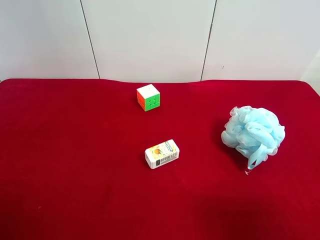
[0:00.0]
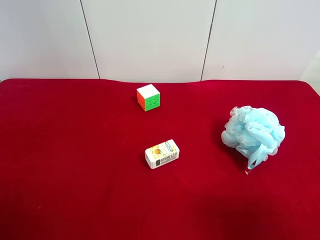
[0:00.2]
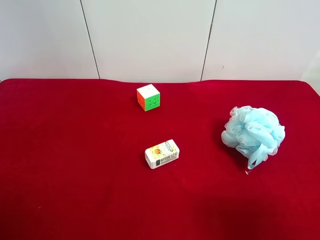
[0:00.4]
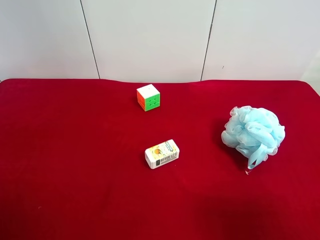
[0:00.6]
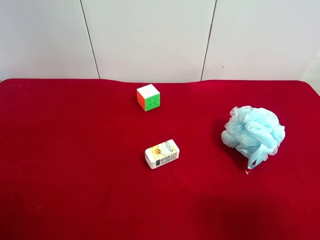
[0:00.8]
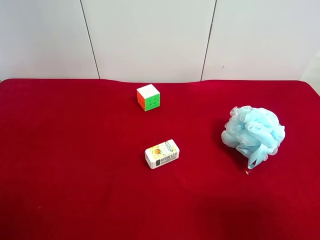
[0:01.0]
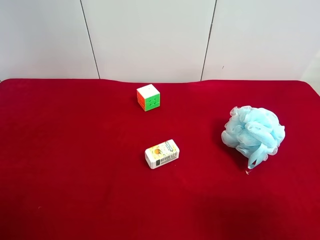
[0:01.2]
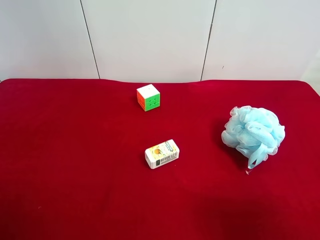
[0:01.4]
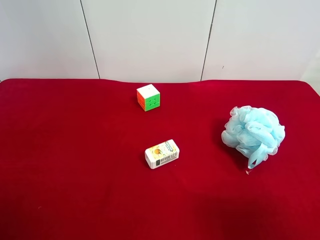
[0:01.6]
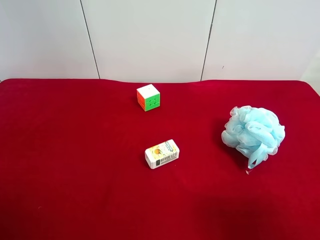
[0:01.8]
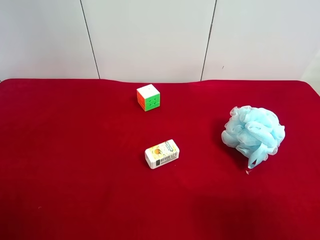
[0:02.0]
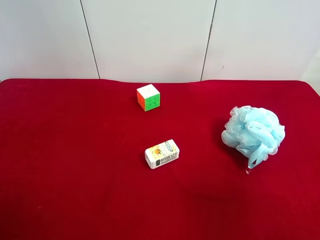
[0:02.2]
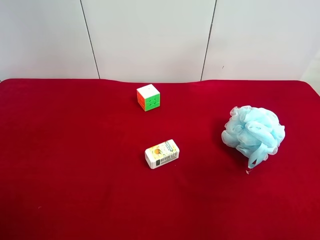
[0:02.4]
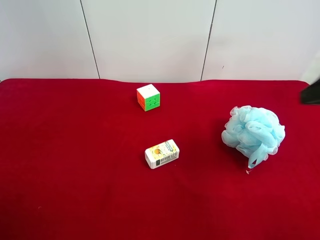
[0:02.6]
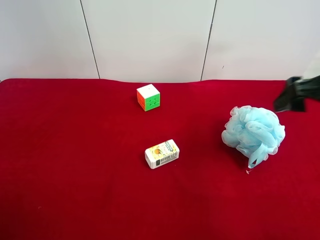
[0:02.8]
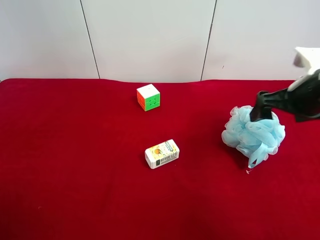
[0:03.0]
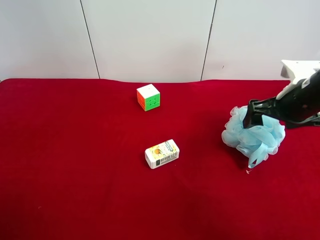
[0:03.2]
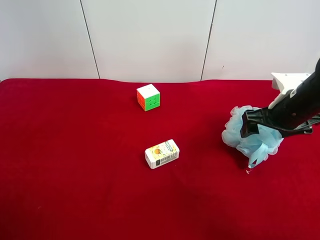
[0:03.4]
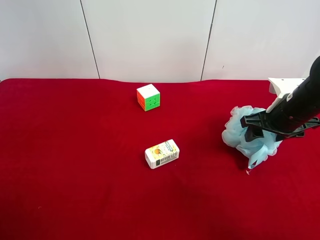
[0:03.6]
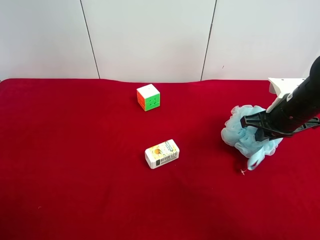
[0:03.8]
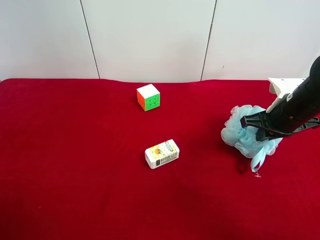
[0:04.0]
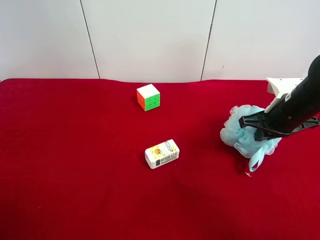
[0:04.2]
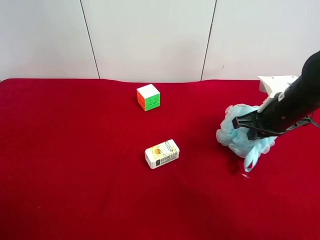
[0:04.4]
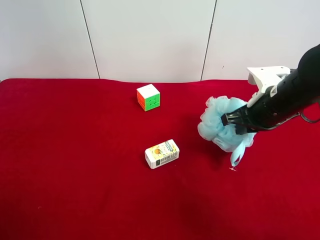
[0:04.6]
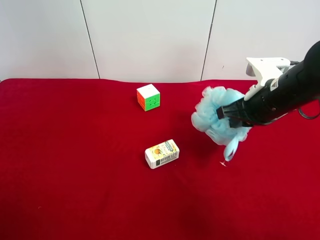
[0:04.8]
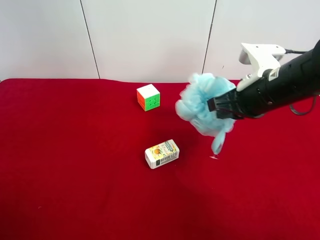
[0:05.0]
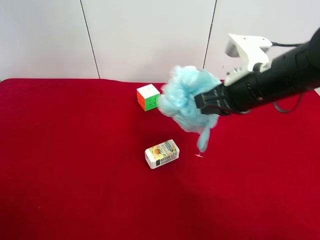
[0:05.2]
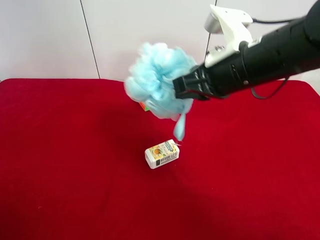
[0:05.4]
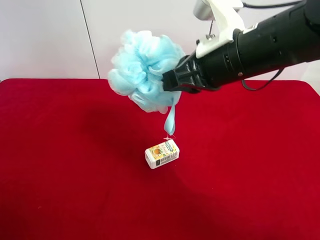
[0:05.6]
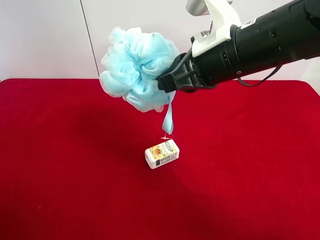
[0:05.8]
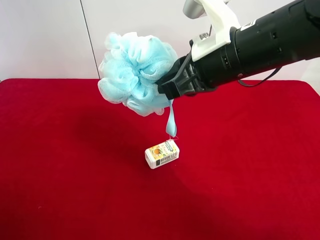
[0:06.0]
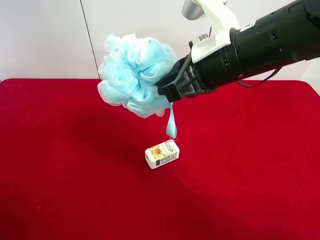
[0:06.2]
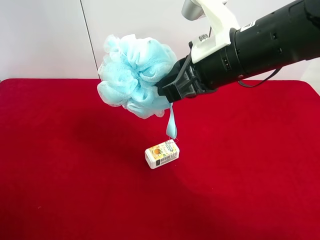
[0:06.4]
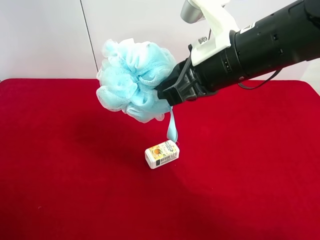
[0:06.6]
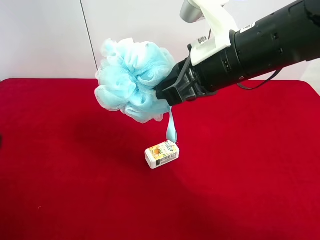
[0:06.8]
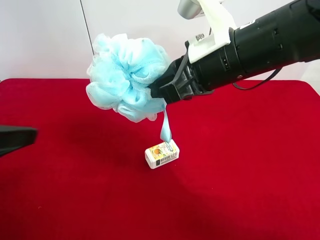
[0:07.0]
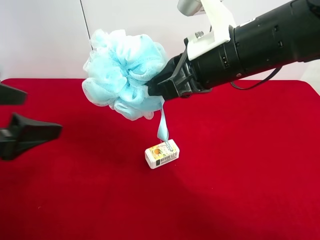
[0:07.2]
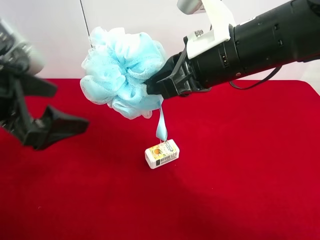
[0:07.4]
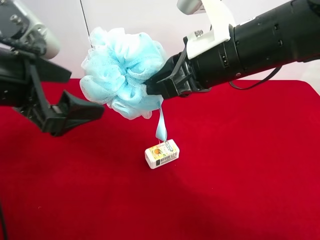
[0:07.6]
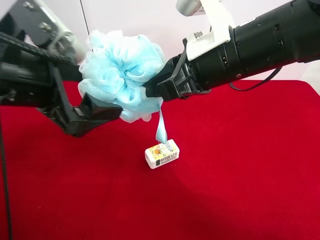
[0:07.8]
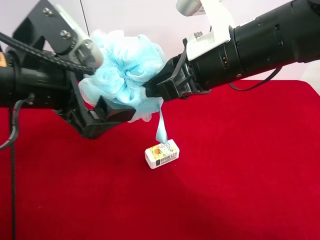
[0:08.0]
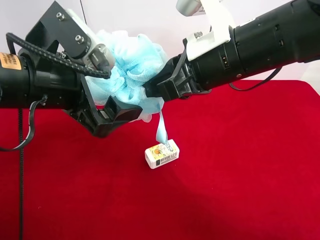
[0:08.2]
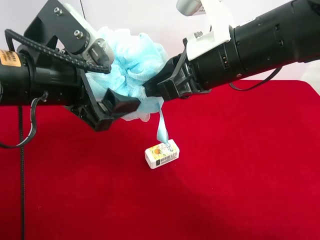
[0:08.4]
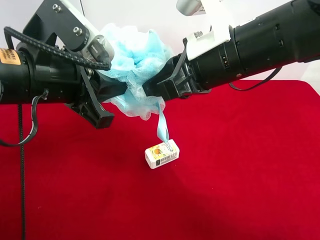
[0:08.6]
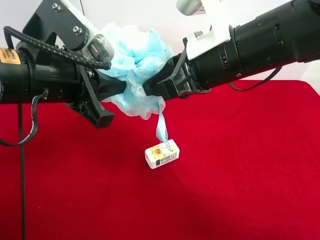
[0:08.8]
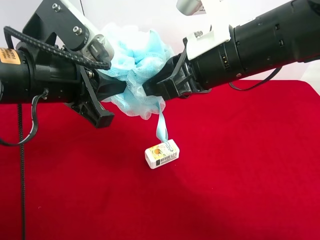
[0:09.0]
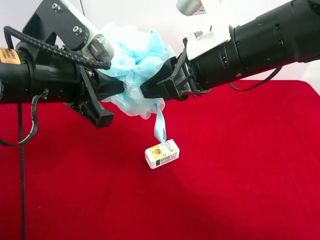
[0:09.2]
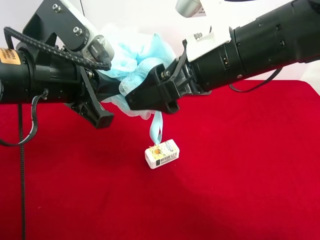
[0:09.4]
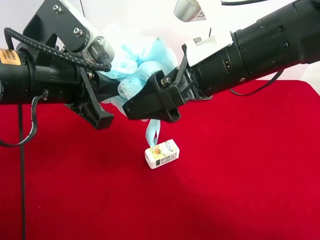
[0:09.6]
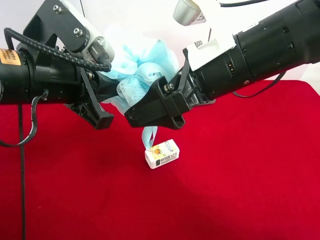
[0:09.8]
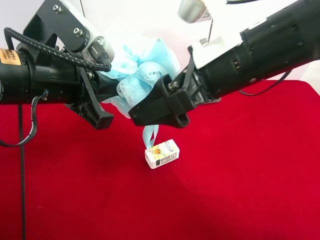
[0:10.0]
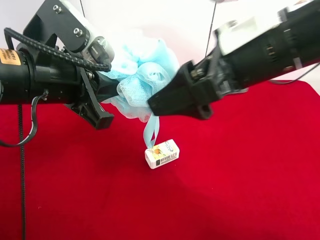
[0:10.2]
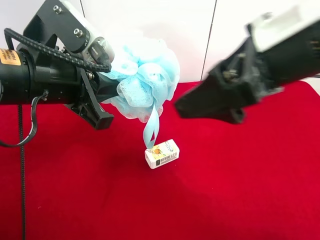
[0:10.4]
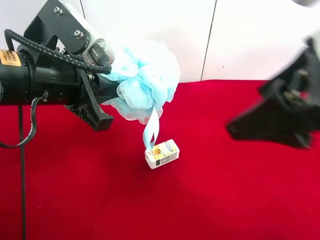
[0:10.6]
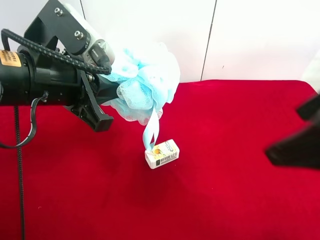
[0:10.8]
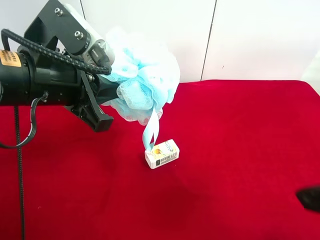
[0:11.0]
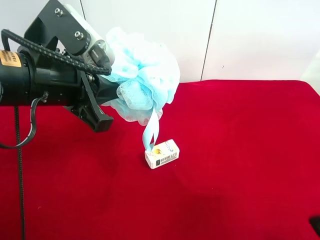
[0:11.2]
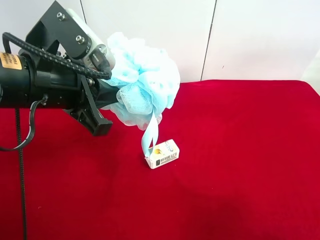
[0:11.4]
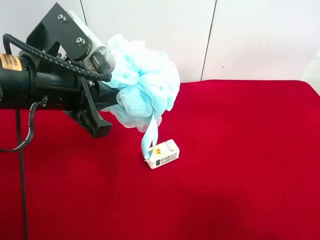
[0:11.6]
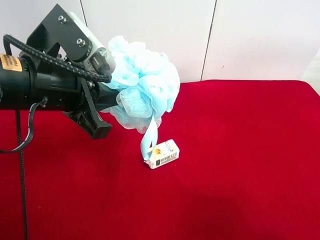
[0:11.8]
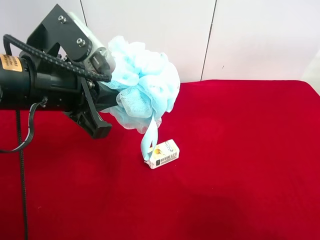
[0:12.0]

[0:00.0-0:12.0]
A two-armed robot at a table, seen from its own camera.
Task of the whole recording: use the right gripper to pick up the item and transfer it from the right gripper to the left gripper.
Step, 0:00.0 to 0:03.8: Use the right gripper to grab the shower sphere on the right side of the table.
Step, 0:04.0 to 0:09.6: Pass the shower sphere to the left gripper.
0:00.0 to 0:01.6: Both grippers stay about where they are.
0:01.6 to 0:03.0: The right gripper is displaced forward by some 25 cm.
0:03.0 to 0:04.4: The right gripper moves some 5 cm, and closes its fingers.
0:04.4 to 0:06.0: The right gripper is displaced to the left and upward by roughly 20 cm.
0:06.0 to 0:07.6: The left gripper shifts approximately 20 cm forward and to the right.
0:07.6 to 0:09.0: The left gripper closes up.
0:09.0 to 0:10.4: The right gripper is displaced backward and to the right by some 10 cm, and opens.
0:10.4 to 0:12.0: The right gripper goes about 20 cm backward, to the right and downward.

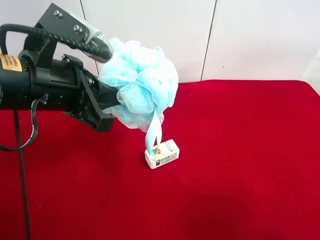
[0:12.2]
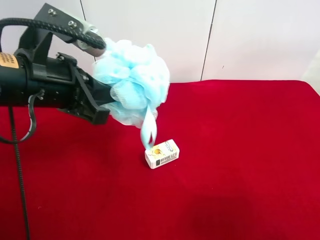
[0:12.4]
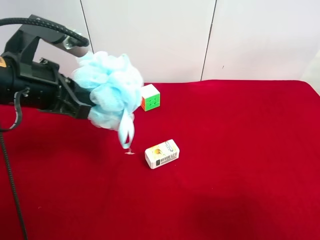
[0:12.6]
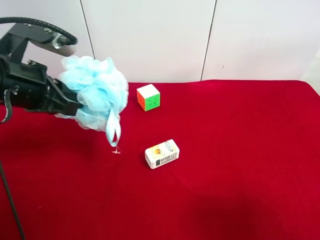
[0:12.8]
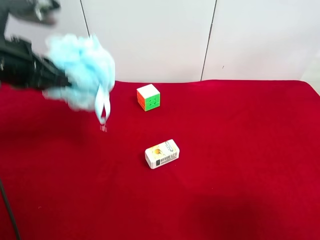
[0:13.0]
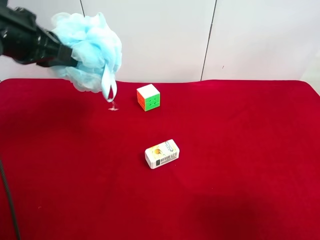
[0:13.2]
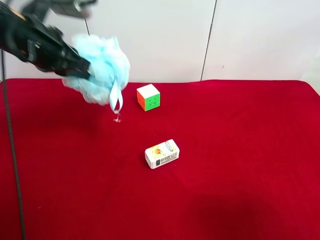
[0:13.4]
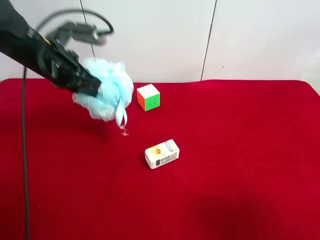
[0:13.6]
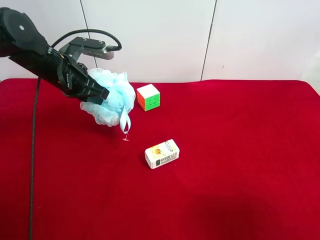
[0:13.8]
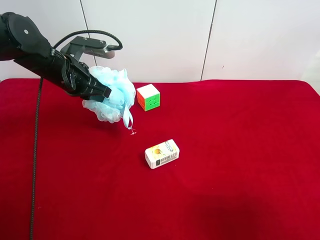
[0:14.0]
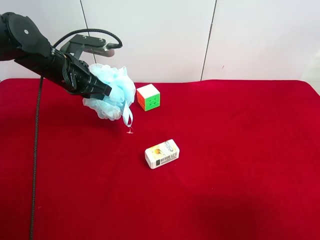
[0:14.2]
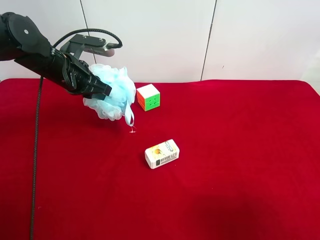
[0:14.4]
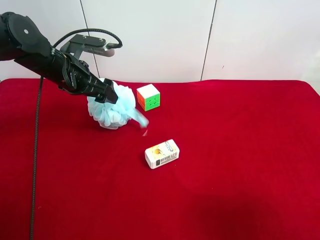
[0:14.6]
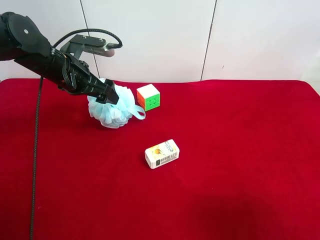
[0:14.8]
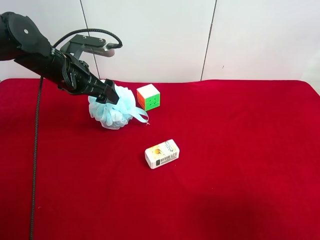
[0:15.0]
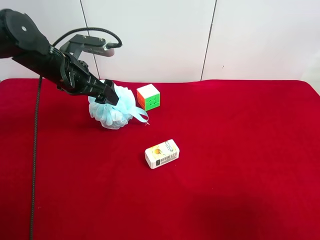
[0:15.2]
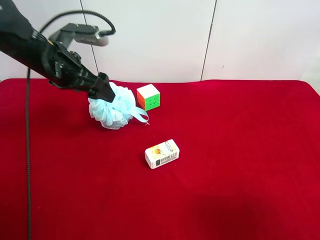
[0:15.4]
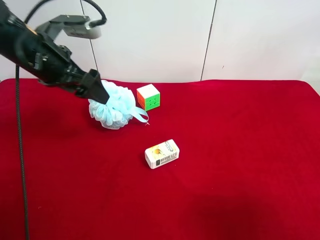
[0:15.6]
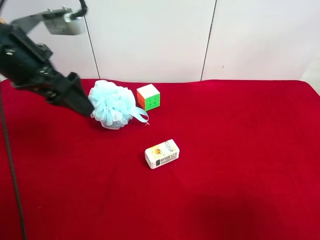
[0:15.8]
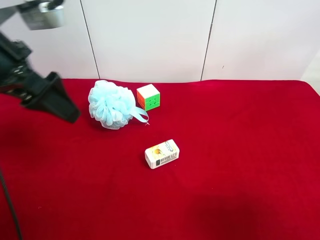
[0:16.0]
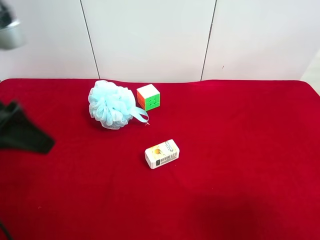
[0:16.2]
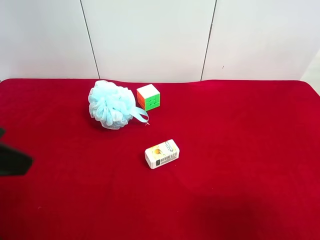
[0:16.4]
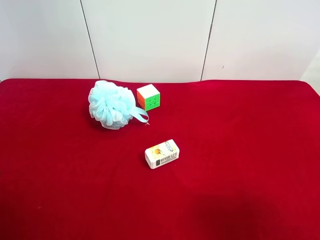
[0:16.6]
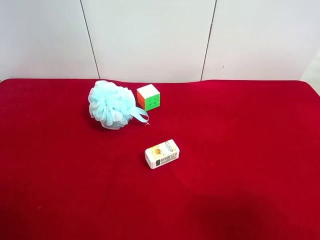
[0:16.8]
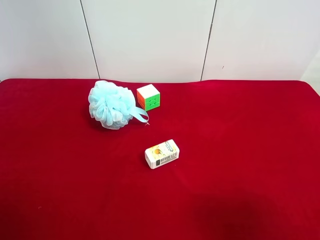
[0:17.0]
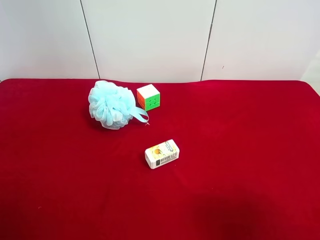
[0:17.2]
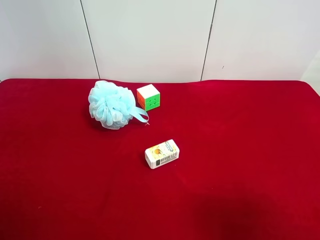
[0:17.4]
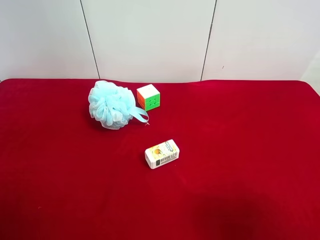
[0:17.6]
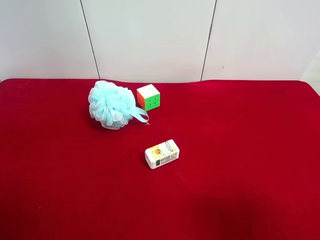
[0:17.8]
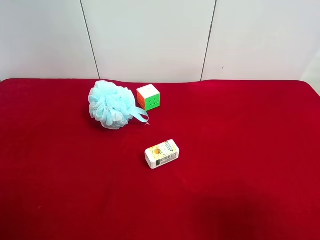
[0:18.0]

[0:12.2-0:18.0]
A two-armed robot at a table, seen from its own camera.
Task of the whole recording: use the right gripper to pick up the item and transfer it from the right gripper to the left gripper.
Step, 0:12.2 to 0:14.8: The left gripper places shower sphere on the left side of the table.
0:12.2 to 0:13.6: The left gripper shifts approximately 15 cm forward.
0:13.6 to 0:15.0: The left gripper opens.
0:15.0 to 0:16.6: The left gripper shifts about 30 cm backward and upward.
